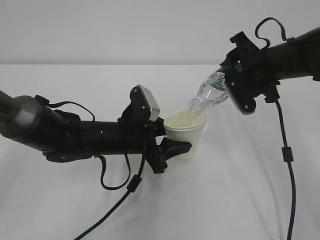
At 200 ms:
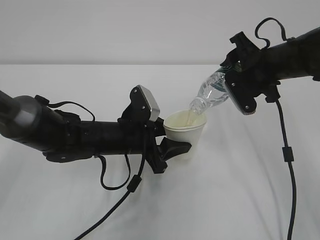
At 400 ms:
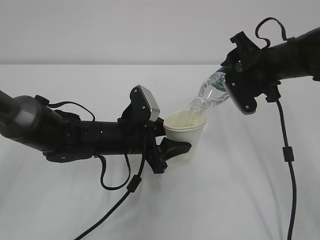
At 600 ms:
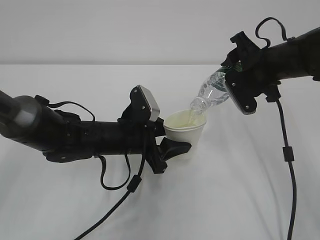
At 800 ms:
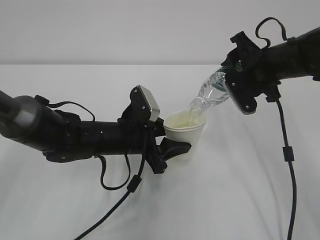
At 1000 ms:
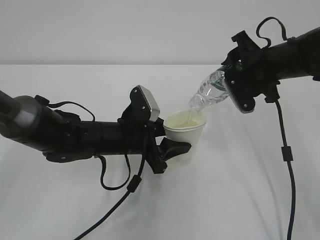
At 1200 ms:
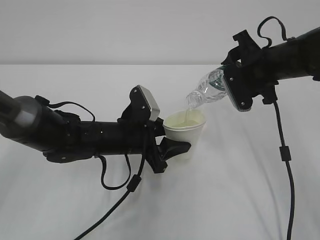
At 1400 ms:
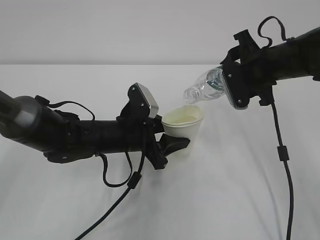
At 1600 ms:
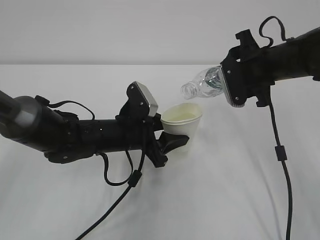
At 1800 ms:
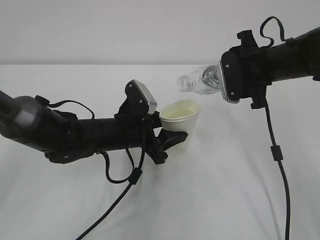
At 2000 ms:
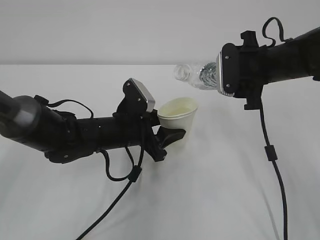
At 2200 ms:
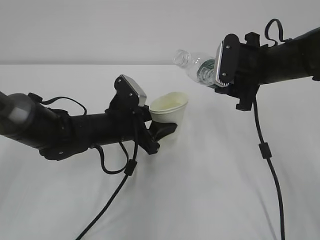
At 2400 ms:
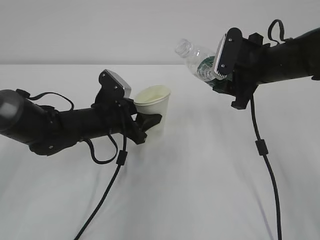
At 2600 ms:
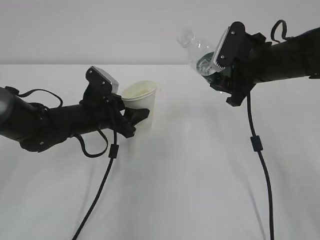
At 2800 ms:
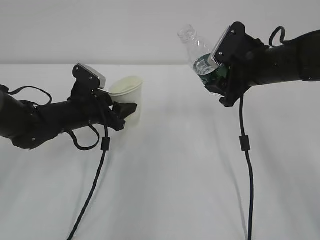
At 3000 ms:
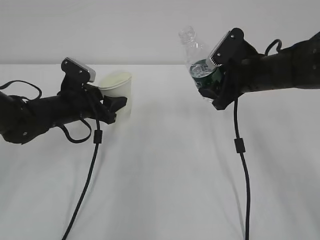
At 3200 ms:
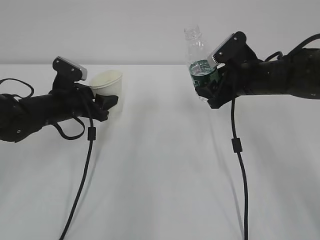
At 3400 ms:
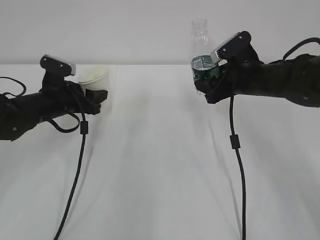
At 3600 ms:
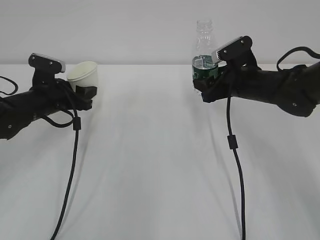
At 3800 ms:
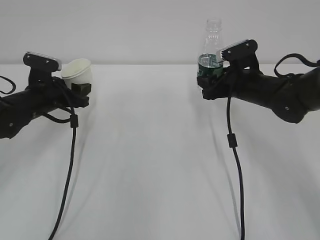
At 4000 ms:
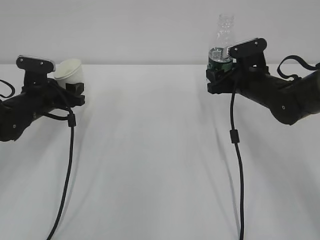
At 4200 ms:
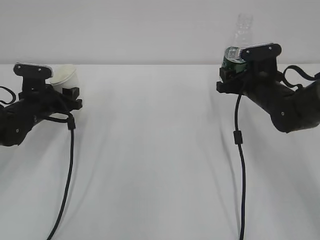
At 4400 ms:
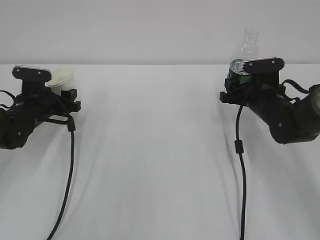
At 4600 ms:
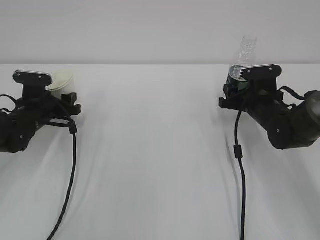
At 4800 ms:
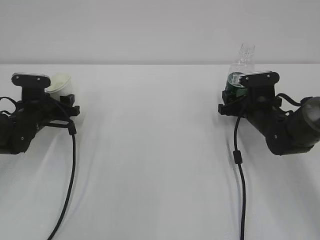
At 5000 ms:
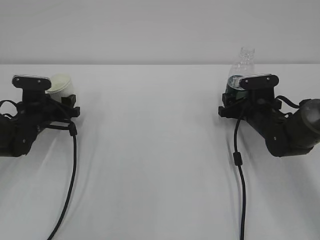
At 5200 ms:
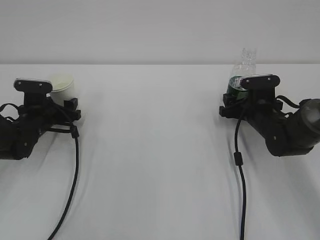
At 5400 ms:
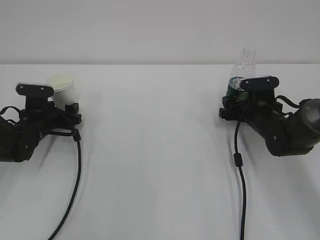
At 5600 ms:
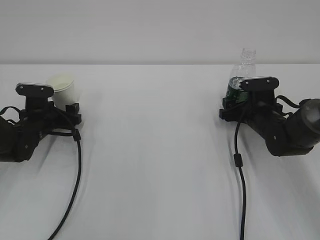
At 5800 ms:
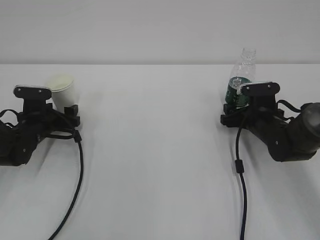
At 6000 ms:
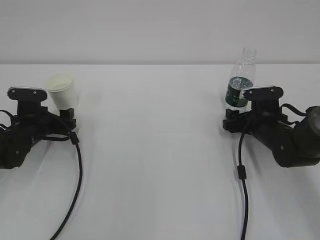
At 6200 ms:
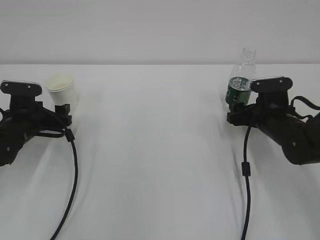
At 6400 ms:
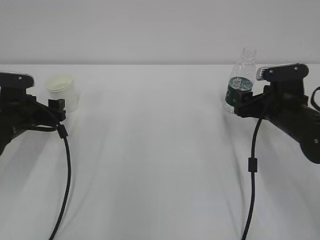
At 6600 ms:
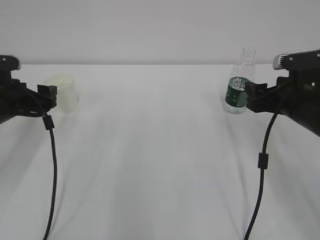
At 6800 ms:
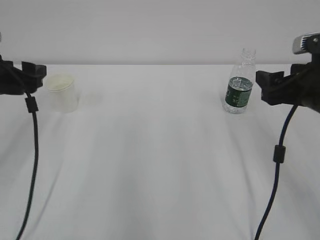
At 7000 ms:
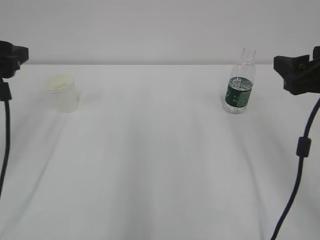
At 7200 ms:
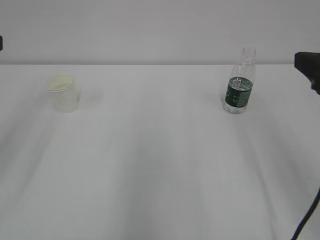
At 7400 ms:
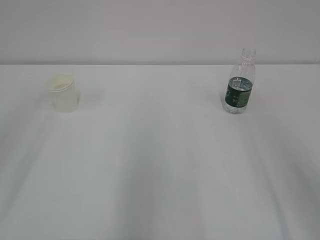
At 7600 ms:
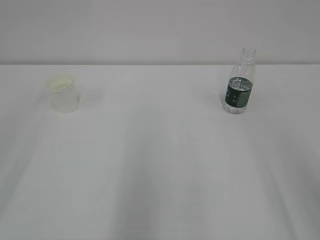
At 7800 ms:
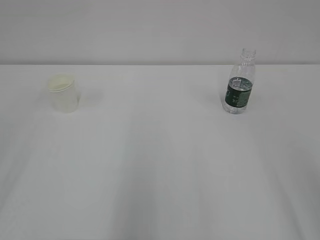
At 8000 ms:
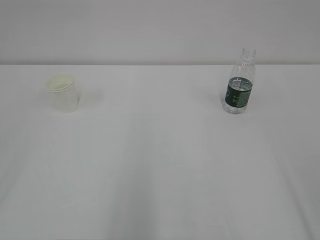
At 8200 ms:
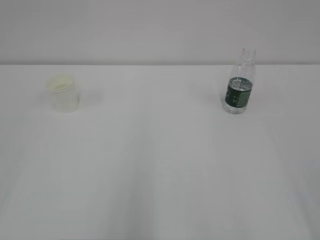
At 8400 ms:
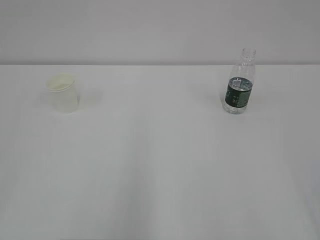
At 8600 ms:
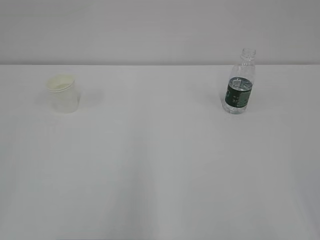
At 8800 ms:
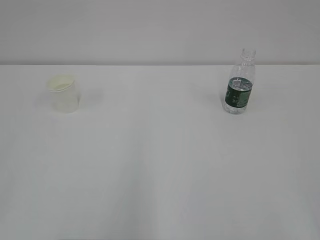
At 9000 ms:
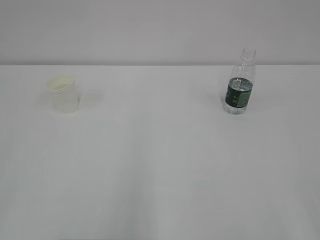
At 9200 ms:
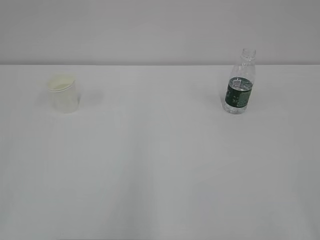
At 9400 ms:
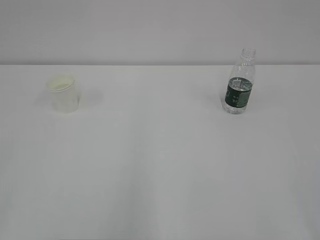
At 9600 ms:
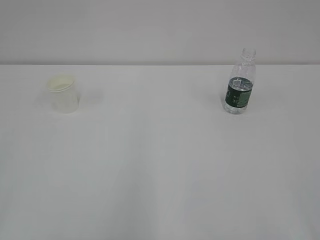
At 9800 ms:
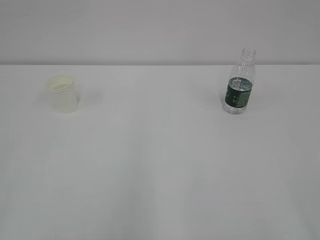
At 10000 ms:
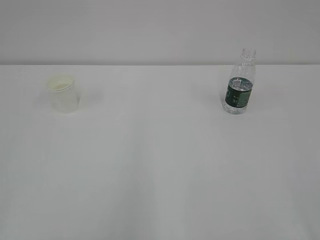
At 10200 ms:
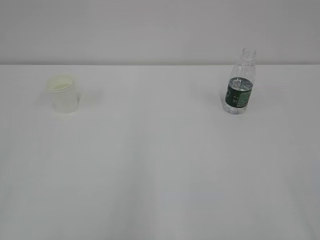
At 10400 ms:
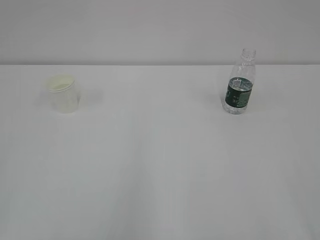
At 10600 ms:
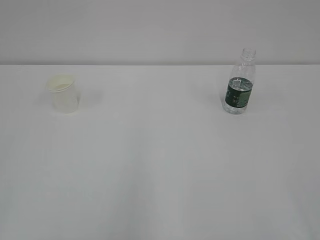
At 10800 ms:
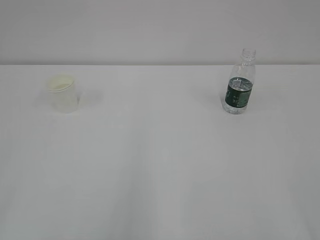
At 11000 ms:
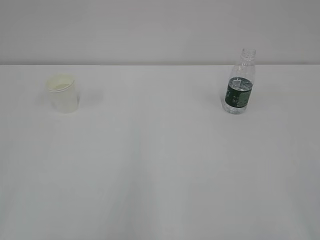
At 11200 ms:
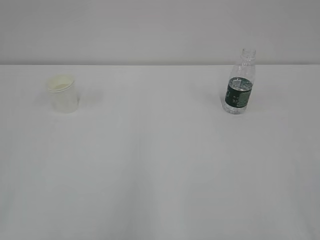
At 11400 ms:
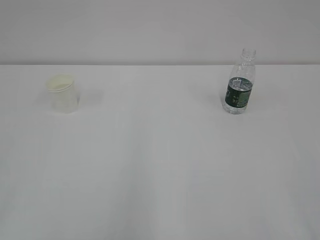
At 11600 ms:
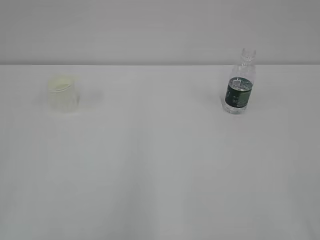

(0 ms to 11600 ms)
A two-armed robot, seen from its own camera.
0 ms - 1400 ms: There are only small adjustments of the grippers.
1400 ms - 2800 ms: The left gripper is displaced to the left and forward by roughly 10 cm.
2800 ms - 4400 ms: The right gripper shifts some 10 cm downward, while the left gripper heads to the left, covering approximately 10 cm.
4400 ms - 5800 ms: The right gripper moves downward, about 5 cm, and opens. The left gripper opens up.
5800 ms - 7200 ms: The grippers both shift upward and backward by roughly 30 cm.
7200 ms - 8800 ms: The right gripper shifts roughly 25 cm backward.

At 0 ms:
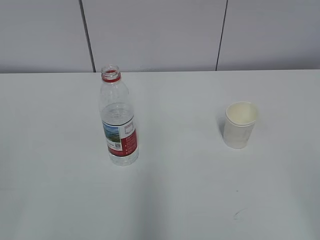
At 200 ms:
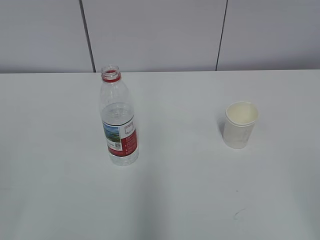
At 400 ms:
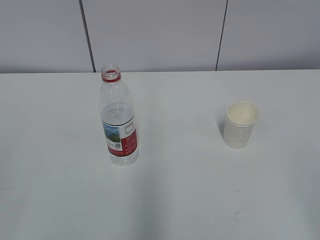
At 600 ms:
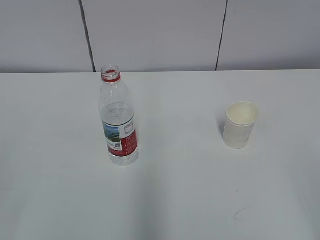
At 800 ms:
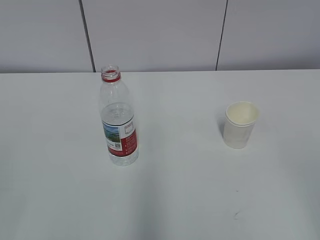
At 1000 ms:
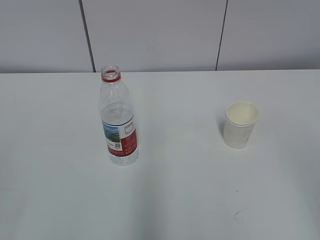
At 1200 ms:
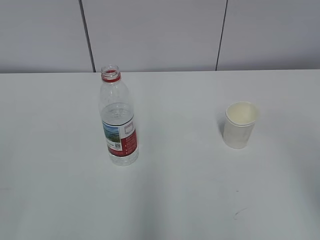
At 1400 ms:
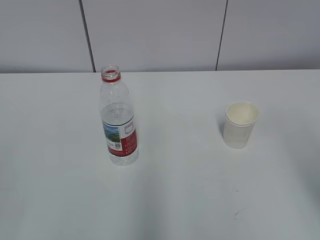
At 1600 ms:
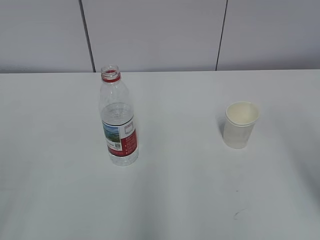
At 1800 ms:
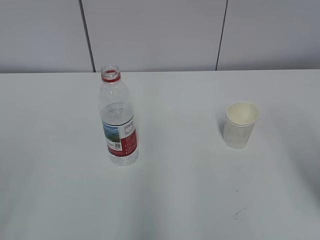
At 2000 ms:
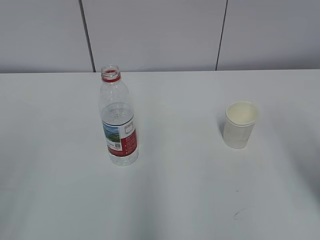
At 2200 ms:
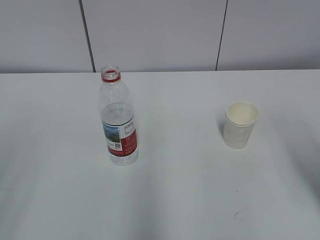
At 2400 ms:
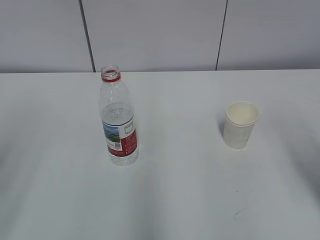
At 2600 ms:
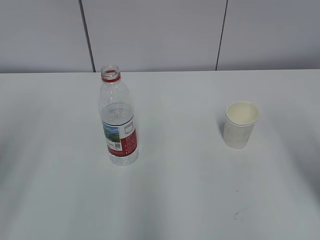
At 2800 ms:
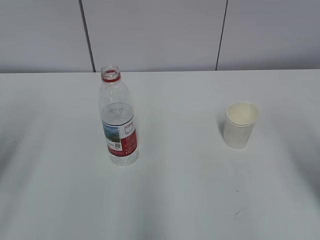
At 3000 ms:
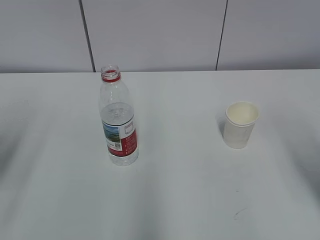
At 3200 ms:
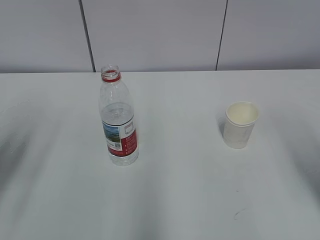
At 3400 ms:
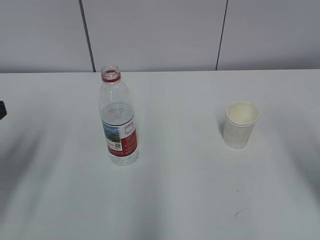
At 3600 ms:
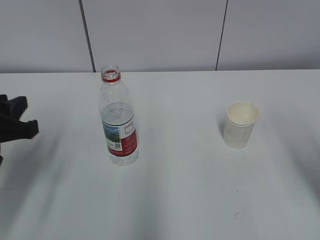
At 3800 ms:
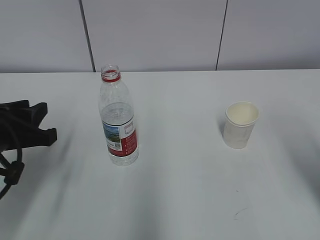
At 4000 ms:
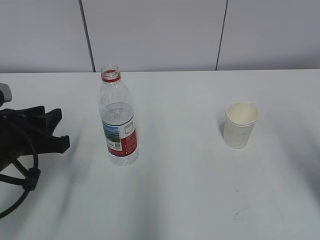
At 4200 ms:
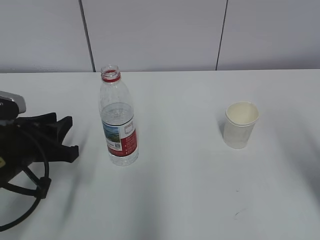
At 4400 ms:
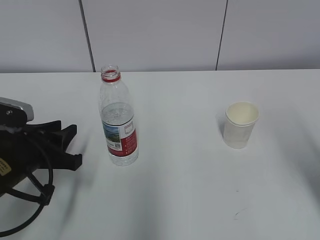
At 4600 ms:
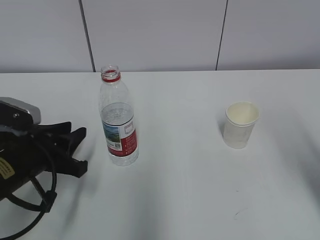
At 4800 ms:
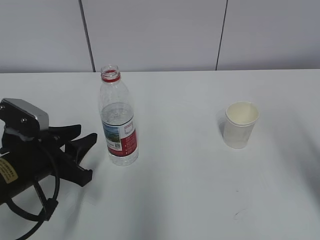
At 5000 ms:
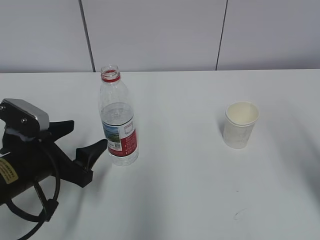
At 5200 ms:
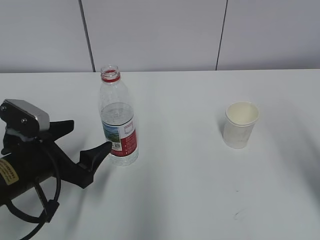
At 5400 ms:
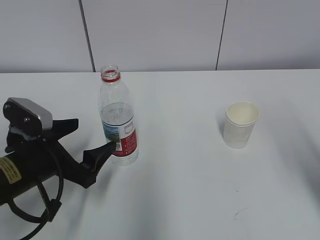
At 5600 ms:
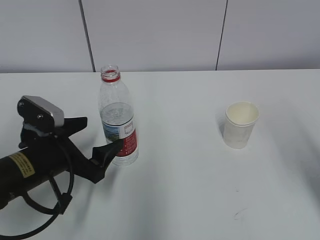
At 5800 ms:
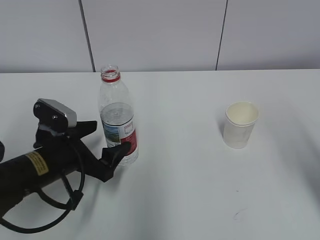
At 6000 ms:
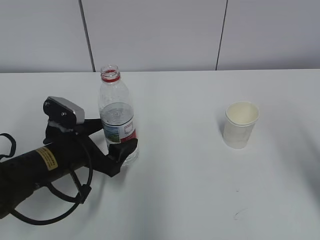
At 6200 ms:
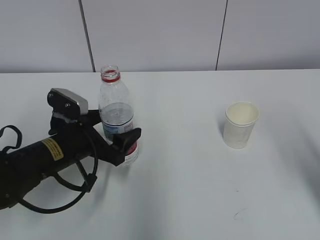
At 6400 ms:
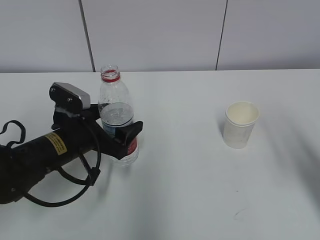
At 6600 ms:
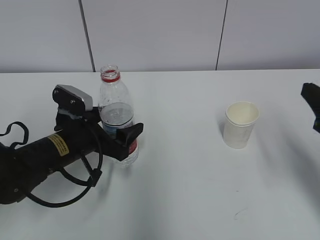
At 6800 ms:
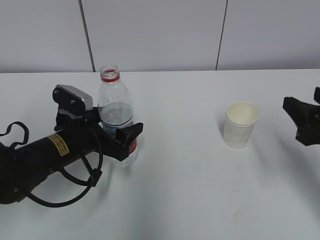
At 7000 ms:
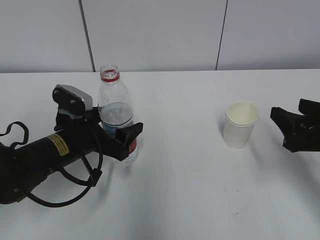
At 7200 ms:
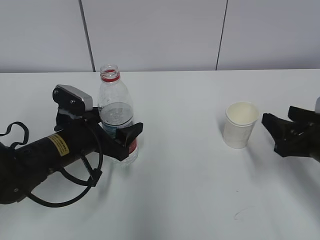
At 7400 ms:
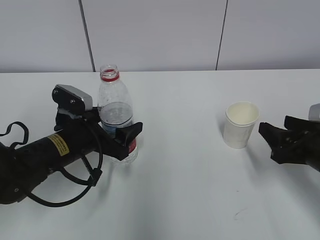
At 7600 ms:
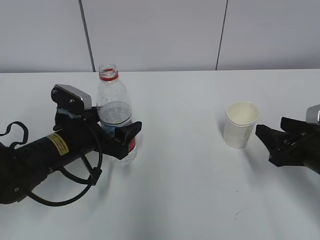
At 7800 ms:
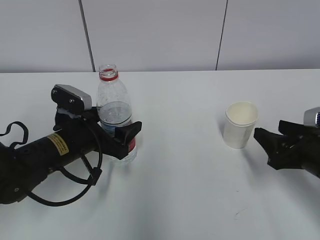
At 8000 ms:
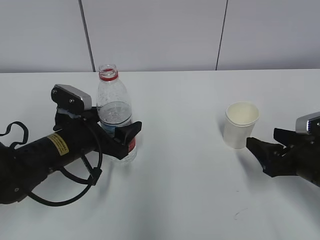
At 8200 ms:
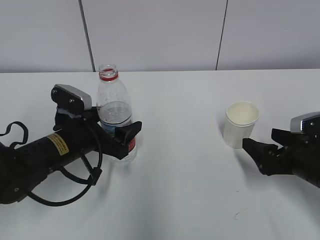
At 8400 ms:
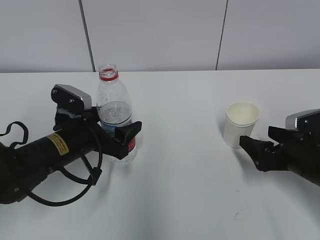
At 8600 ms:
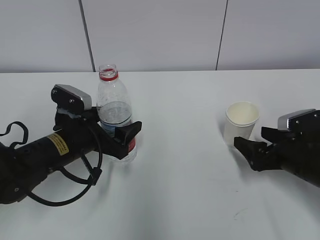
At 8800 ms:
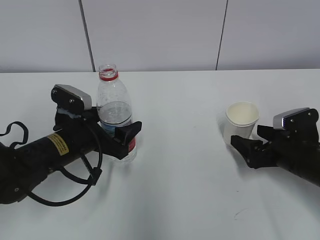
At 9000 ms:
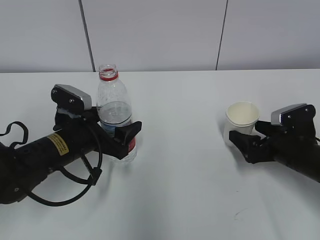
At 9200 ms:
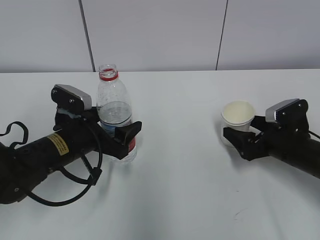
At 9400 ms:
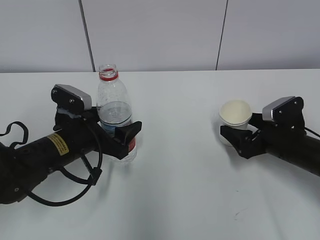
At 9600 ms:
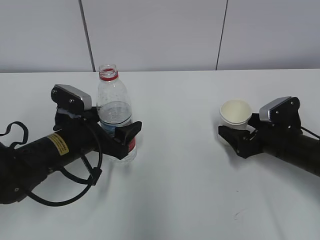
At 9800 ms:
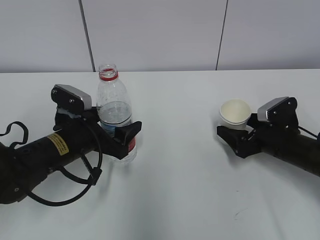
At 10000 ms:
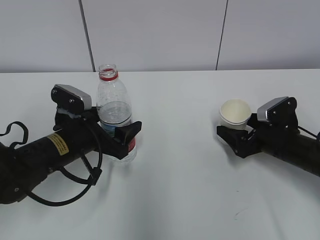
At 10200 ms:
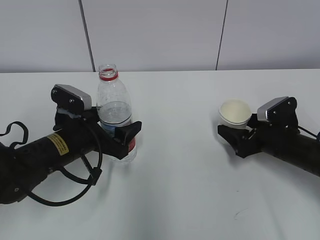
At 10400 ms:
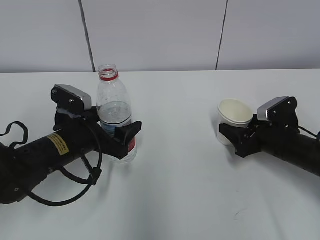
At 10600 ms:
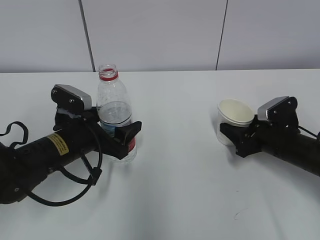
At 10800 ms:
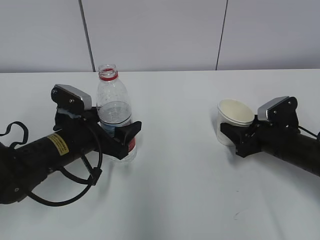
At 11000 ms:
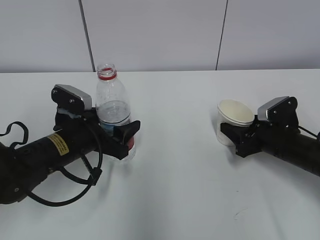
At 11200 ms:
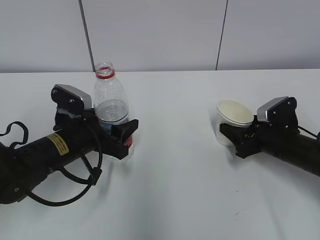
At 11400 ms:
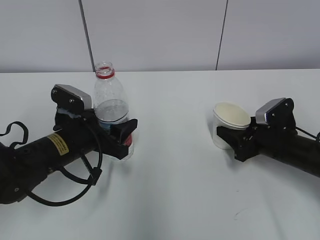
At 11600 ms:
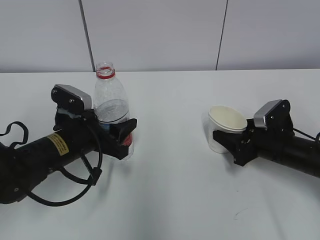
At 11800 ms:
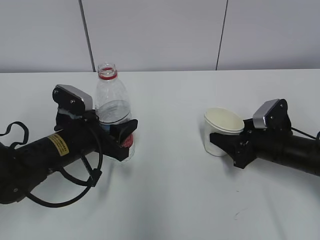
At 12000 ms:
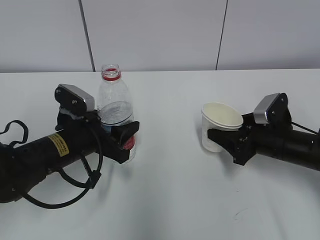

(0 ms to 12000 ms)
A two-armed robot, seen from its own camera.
Step, 0 ms - 9600 ms: Grab the paper cup with the right hand.
1600 ms - 3000 ms: The left gripper moves forward, roughly 20 cm.
3000 ms - 4400 ms: The left gripper shifts about 15 cm downward and to the right.
4400 ms - 6000 ms: The left gripper moves to the right, roughly 5 cm, and opens up.
6000 ms - 7600 ms: The right gripper moves downward and forward, about 15 cm.
7600 ms - 9000 ms: The right gripper is displaced forward and downward by about 10 cm, and opens its fingers.
9000 ms - 10400 ms: The right gripper closes.
10400 ms - 12000 ms: The left gripper closes its fingers.
